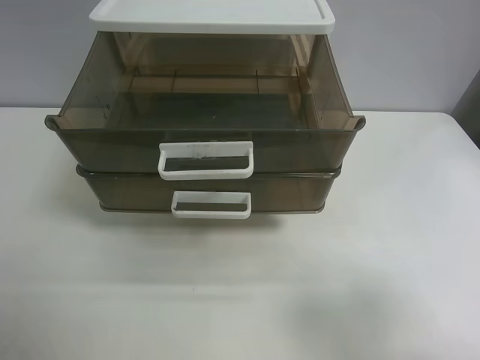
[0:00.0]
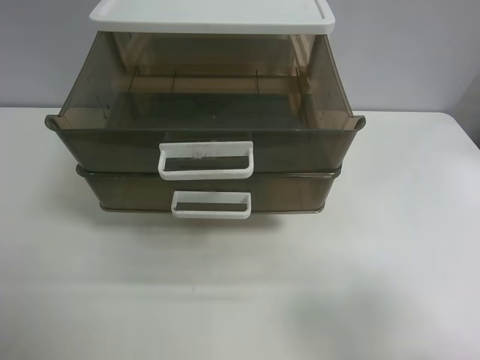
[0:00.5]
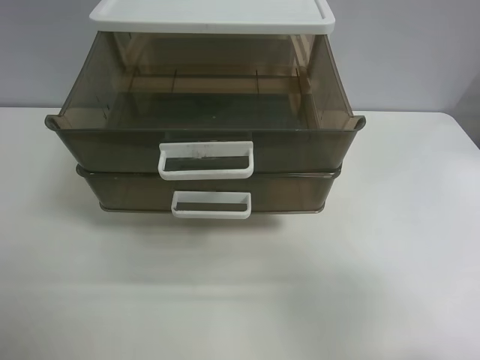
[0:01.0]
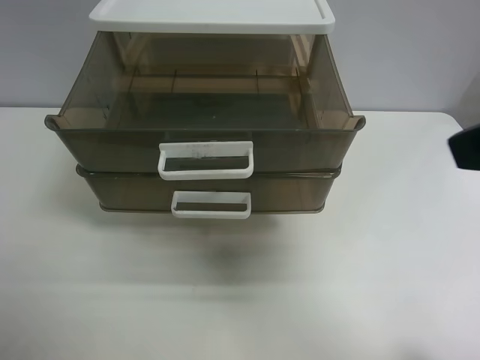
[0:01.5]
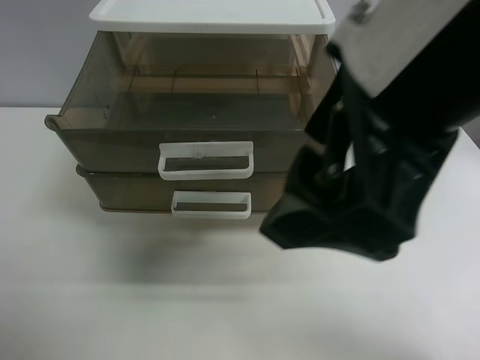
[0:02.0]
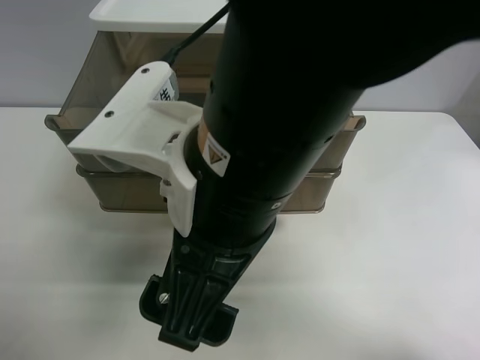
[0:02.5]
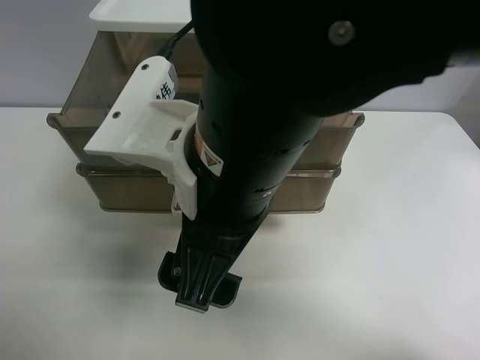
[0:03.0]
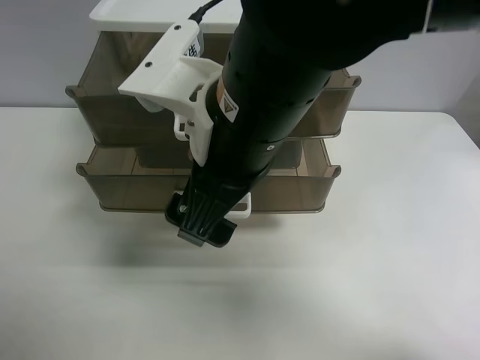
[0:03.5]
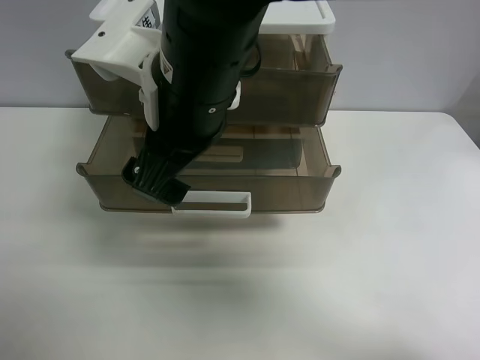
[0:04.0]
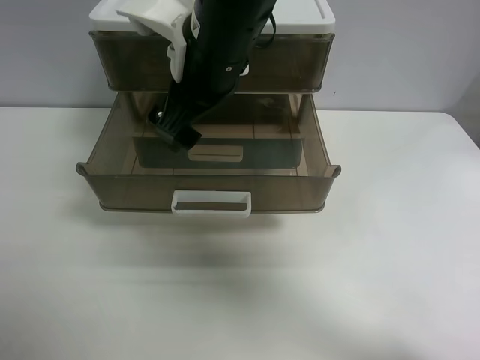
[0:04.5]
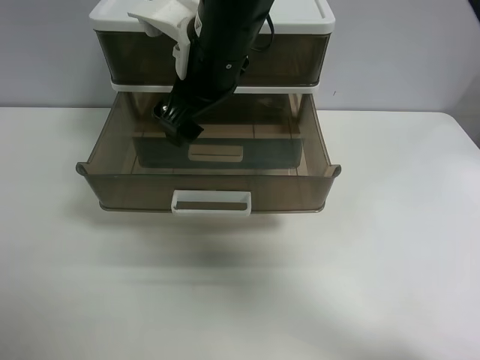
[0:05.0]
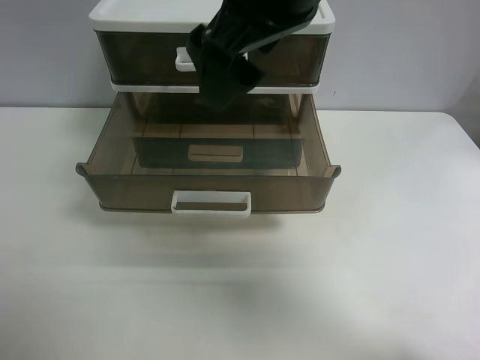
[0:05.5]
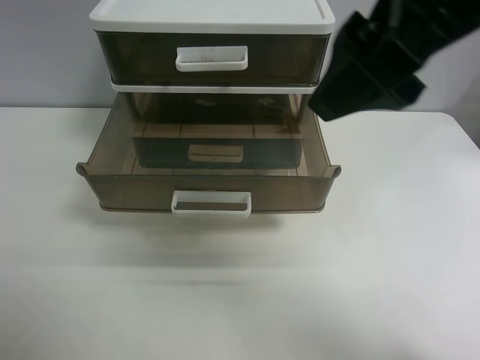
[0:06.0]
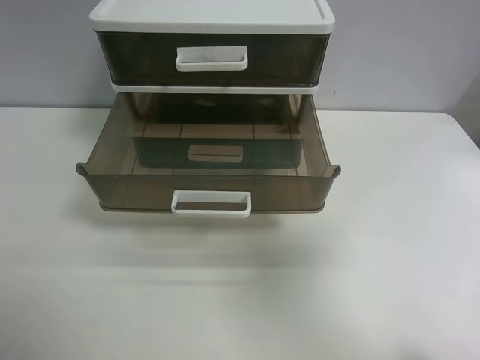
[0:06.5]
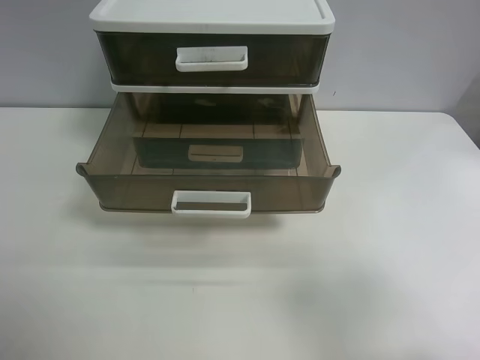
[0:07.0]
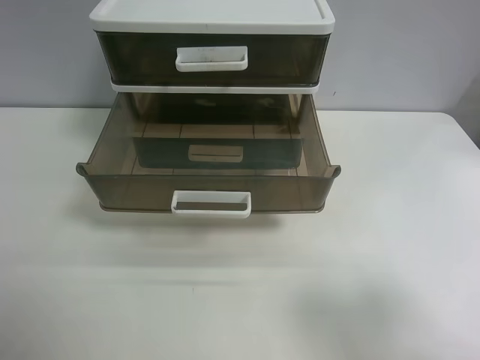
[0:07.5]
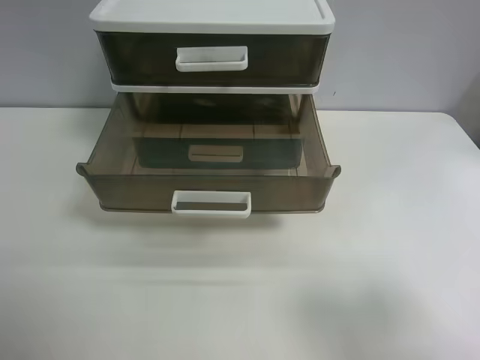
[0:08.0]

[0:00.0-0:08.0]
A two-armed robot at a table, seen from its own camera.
Task of the whole recording: close the top drawer.
Step, 0:00.0 to 0:02.5: Use the right gripper to touch the topmost layer of the storage cabinet.
Step, 0:03.0 to 0:04.5: Push the top drawer closed.
0:00.0 to 0:02.0: The right gripper goes some 25 cm to the left, forward and upward.
0:02.0 to 0:04.0: The right gripper heads to the left, forward and downward, covering approximately 15 cm.
0:04.0 to 0:06.0: The right gripper is displaced to the right and upward by about 20 cm.
0:06.0 to 0:08.0: The right gripper goes about 25 cm to the right, backward and downward.
